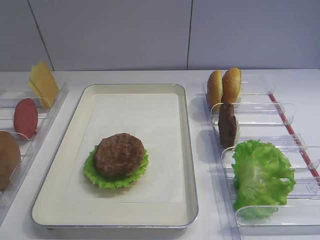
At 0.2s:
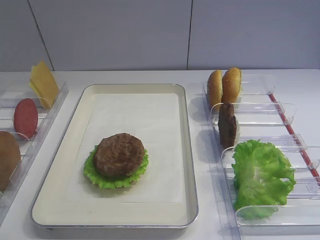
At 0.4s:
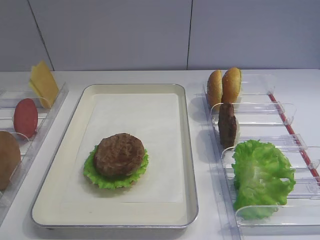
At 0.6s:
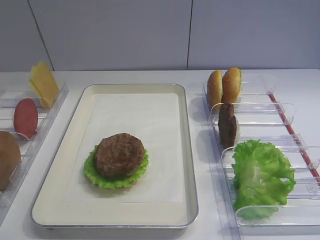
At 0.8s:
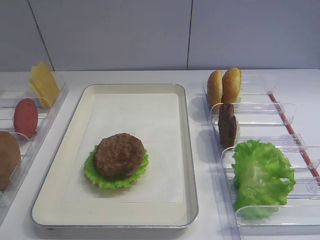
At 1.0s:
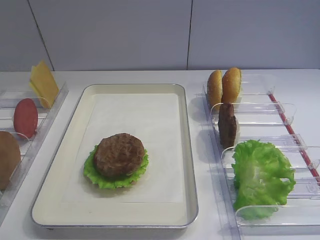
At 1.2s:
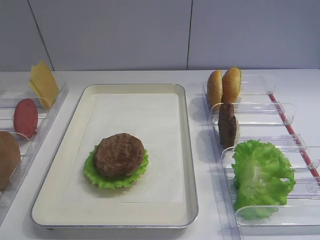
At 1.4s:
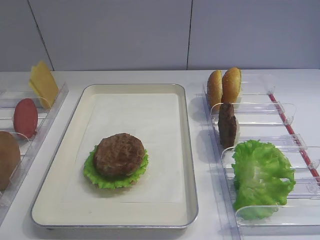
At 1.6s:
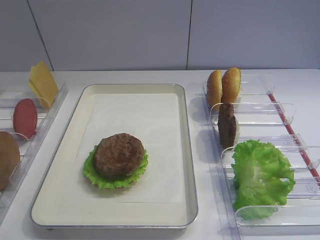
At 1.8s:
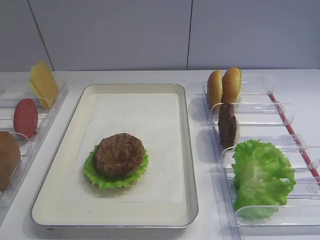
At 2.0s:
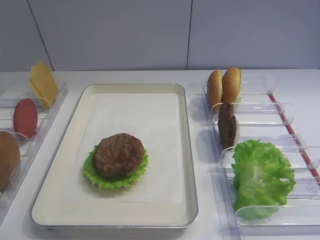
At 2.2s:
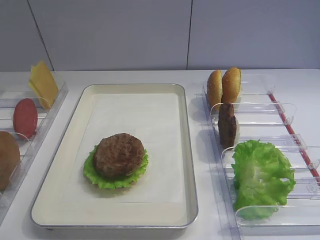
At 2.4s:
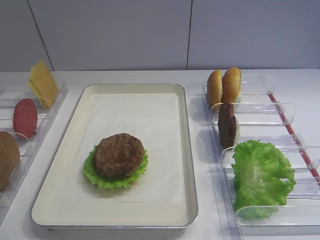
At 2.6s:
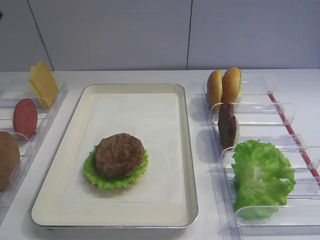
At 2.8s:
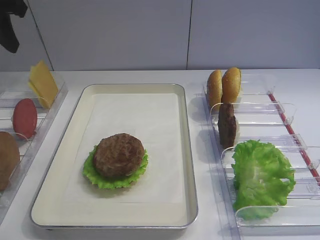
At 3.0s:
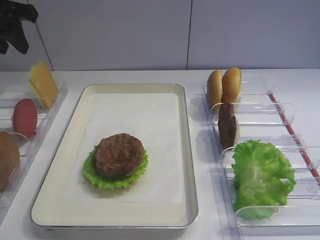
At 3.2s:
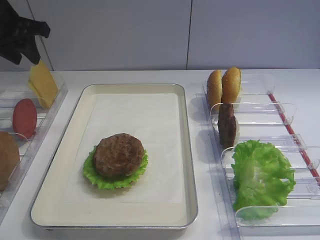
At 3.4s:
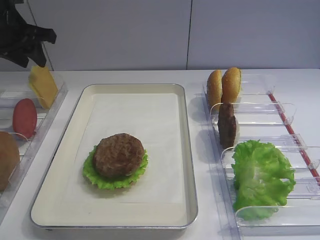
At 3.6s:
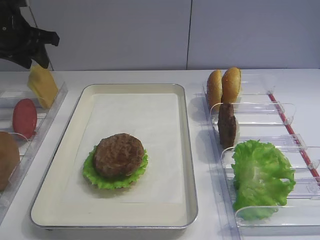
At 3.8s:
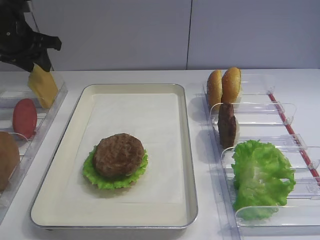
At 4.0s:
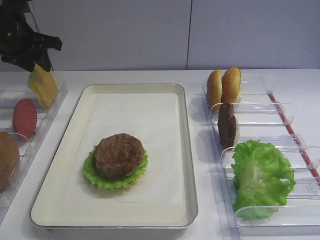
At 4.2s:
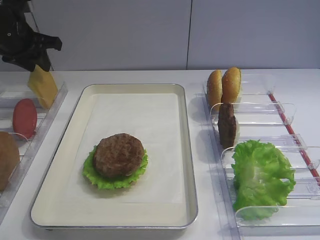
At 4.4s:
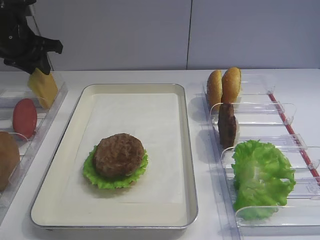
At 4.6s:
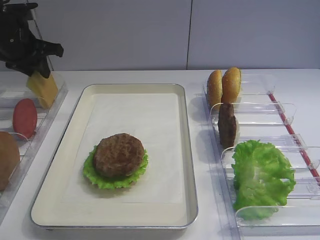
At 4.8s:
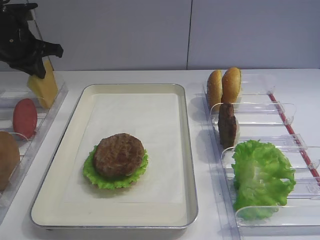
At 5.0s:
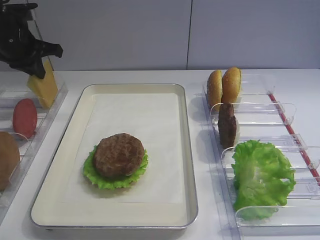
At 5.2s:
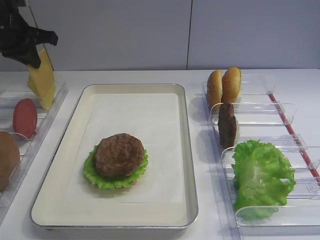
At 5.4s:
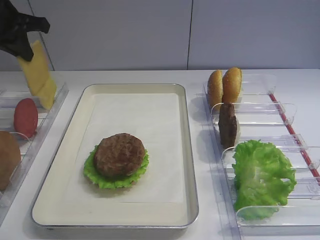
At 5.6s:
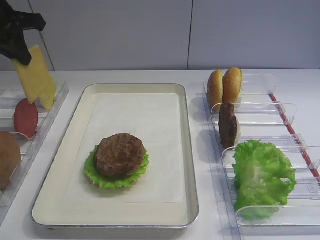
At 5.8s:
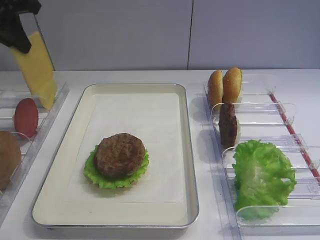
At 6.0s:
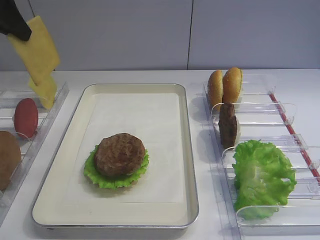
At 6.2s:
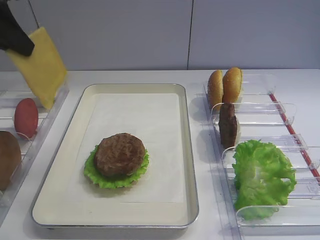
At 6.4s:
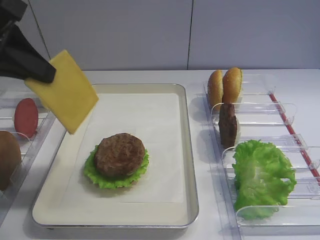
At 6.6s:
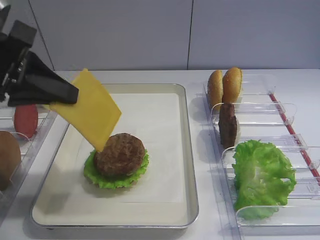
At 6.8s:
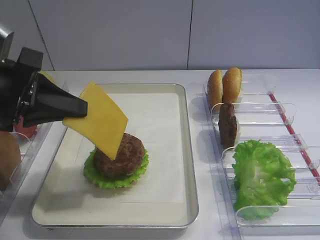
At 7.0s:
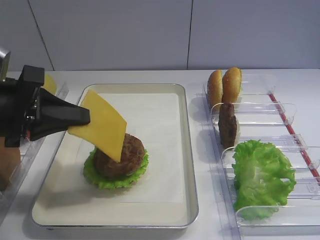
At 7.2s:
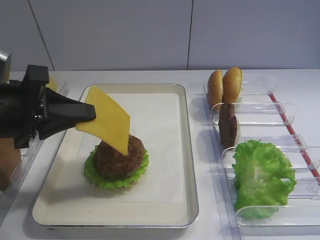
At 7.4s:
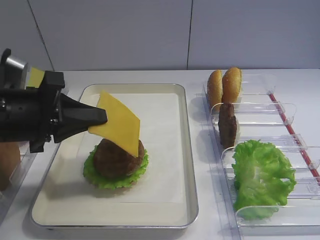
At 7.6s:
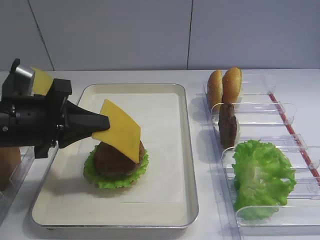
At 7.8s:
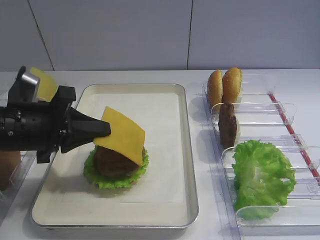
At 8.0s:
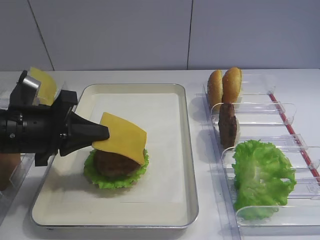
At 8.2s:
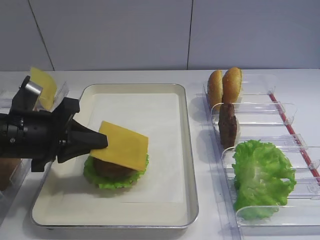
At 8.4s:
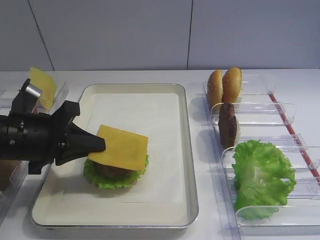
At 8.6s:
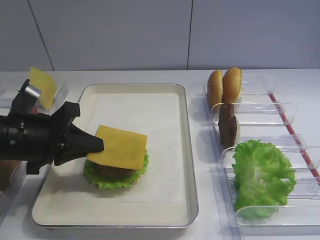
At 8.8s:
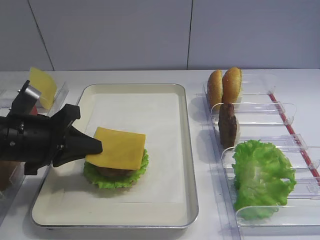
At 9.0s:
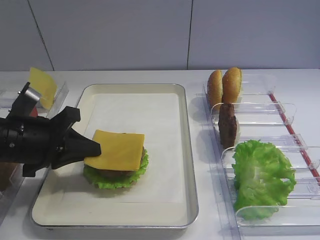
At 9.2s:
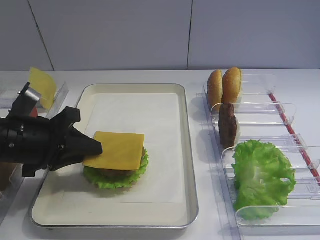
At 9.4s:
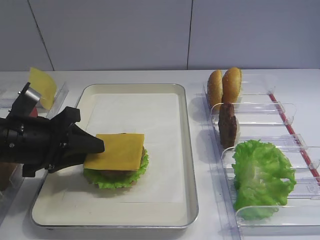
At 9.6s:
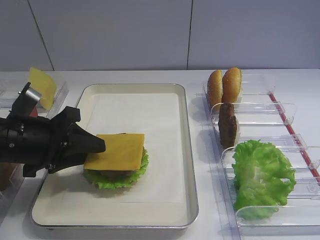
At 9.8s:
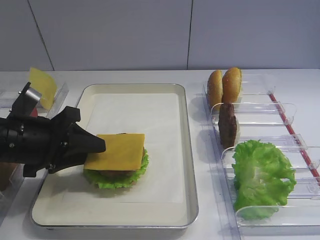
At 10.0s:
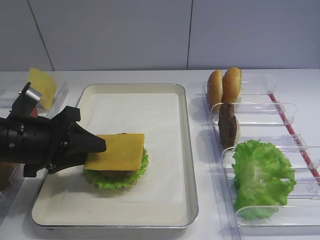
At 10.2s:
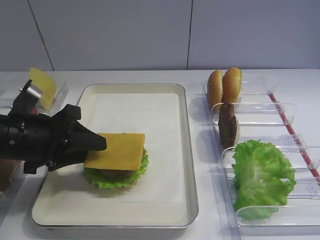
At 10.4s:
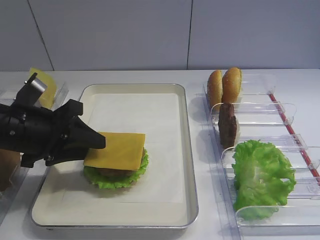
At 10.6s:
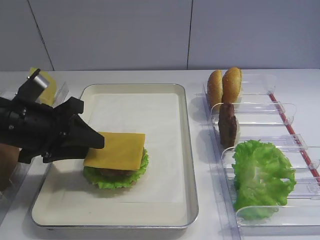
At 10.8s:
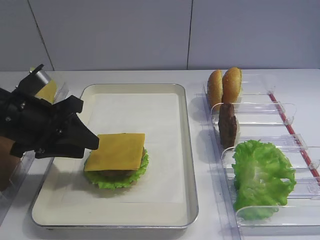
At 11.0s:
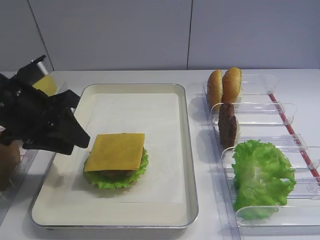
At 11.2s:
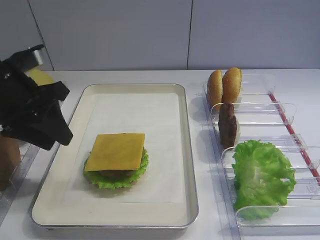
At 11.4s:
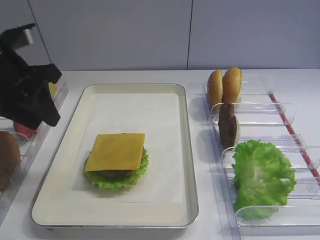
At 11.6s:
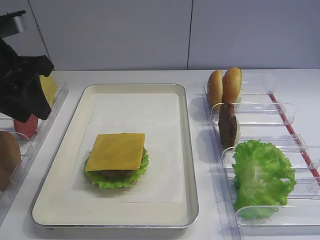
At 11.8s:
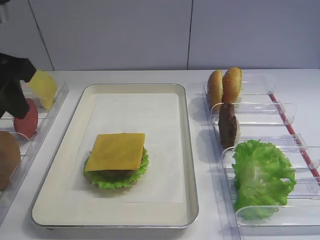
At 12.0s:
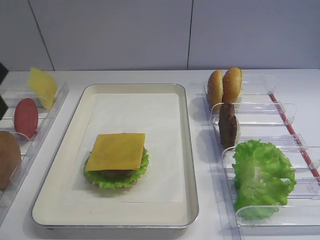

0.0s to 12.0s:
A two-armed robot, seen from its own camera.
Step, 0.0s to 5.4s: Pick up the cheese slice with the left gripper.
Step, 5.6s to 11.0s: Place the cheese slice on the cutlet with the left gripper.
1.6s to 3.0s: The left gripper shifts some 40 cm forward.
3.0s to 4.4s: The left gripper is displaced downward and forward by approximately 10 cm.
4.4s to 6.0s: The left gripper moves upward and backward, about 15 cm, and closes its fingers.
6.0s to 7.6s: The left gripper heads downward and backward, covering approximately 20 cm.
7.6s to 9.0s: The grippers stay close to where they were, moving slightly.
9.0s to 10.4s: The left gripper opens its fingers.
10.4s to 12.0s: The left gripper is displaced upward by roughly 15 cm.

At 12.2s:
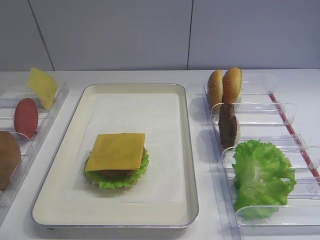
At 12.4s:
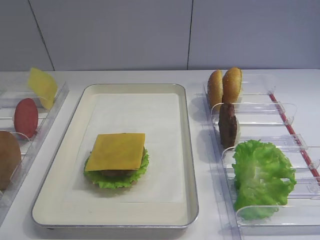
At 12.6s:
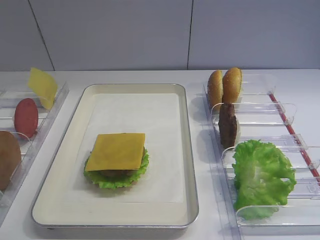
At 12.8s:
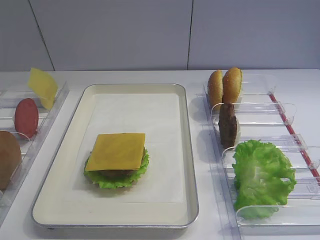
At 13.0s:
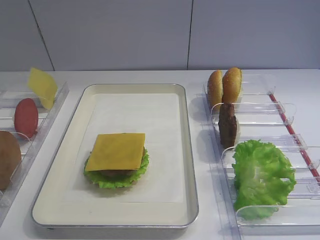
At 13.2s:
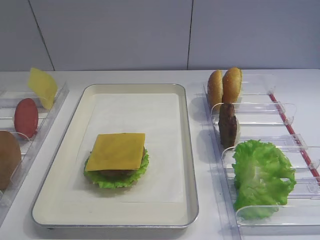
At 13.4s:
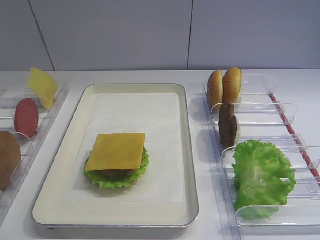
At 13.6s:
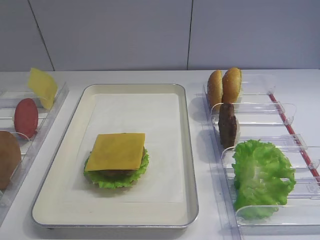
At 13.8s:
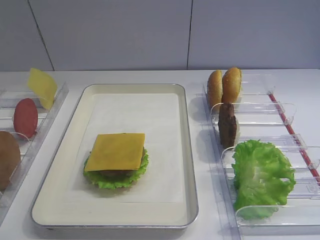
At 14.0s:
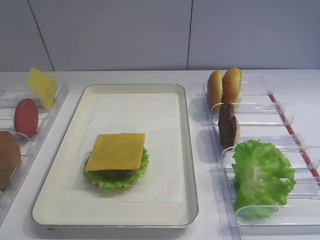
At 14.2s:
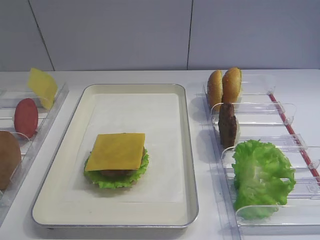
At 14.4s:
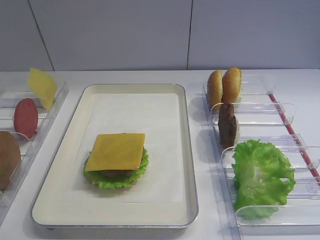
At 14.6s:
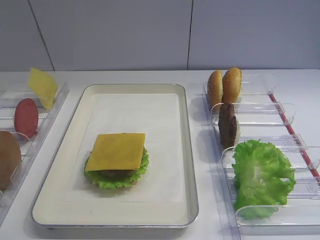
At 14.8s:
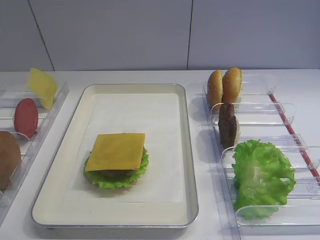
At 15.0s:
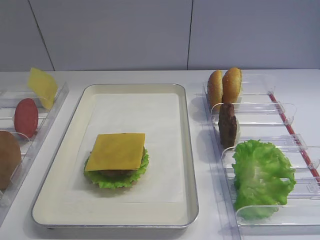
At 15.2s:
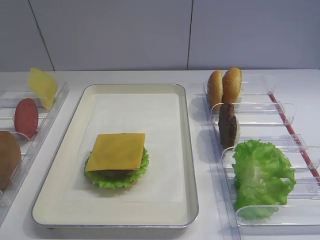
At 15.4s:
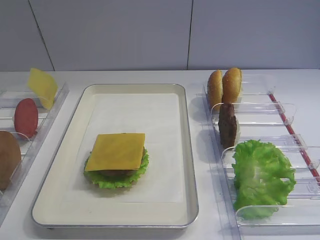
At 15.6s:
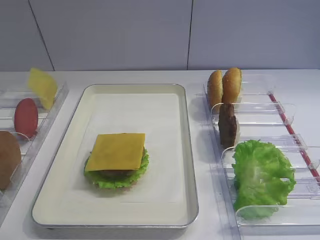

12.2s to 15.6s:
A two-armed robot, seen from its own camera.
13.8s to 15.6s: Both grippers stay put.

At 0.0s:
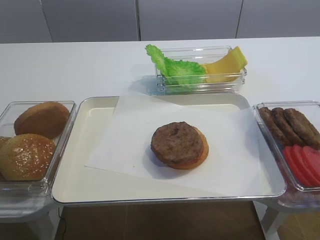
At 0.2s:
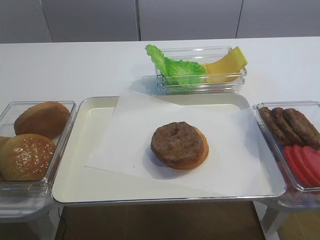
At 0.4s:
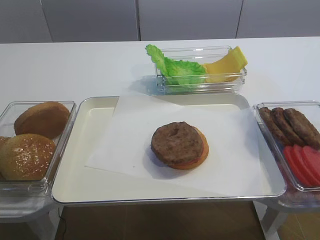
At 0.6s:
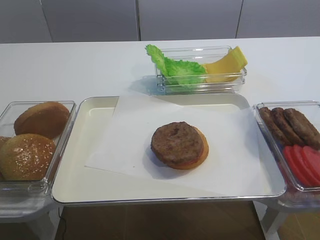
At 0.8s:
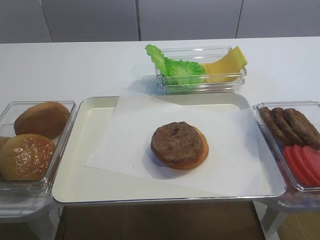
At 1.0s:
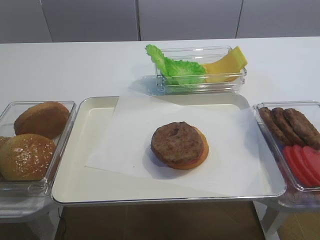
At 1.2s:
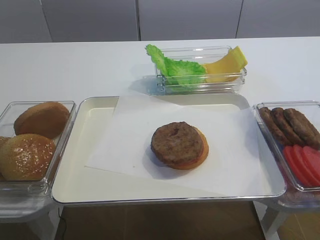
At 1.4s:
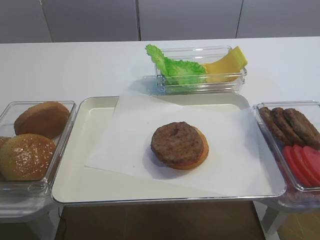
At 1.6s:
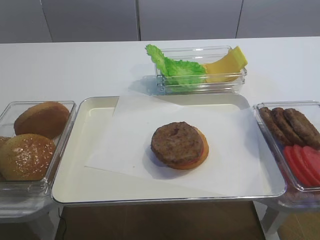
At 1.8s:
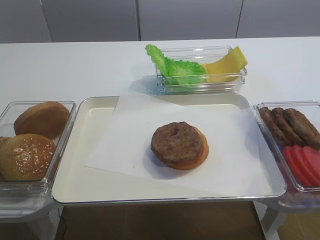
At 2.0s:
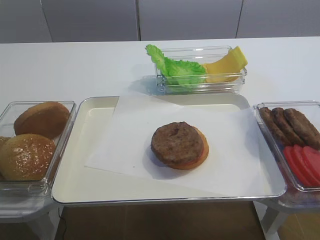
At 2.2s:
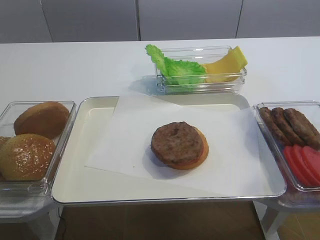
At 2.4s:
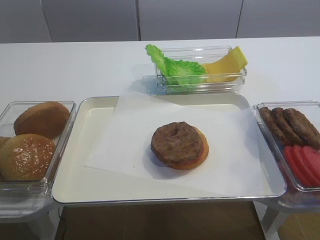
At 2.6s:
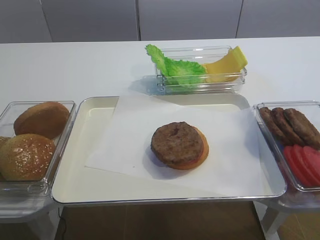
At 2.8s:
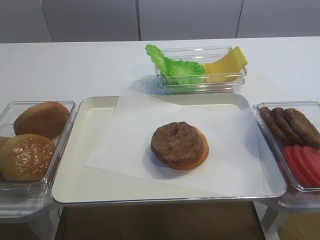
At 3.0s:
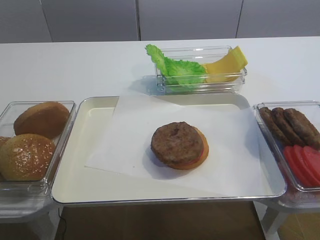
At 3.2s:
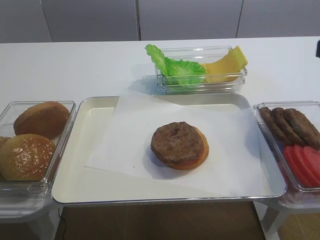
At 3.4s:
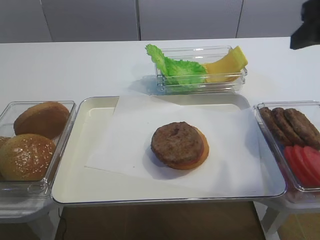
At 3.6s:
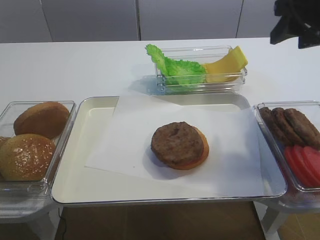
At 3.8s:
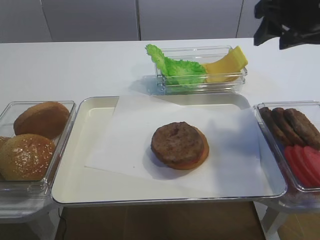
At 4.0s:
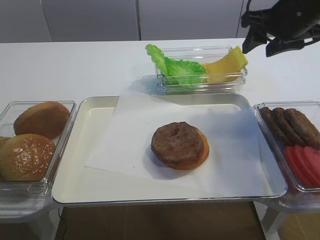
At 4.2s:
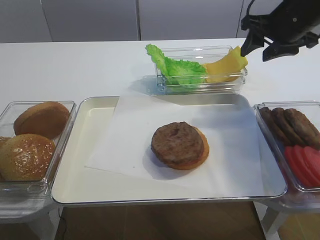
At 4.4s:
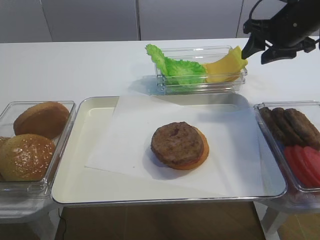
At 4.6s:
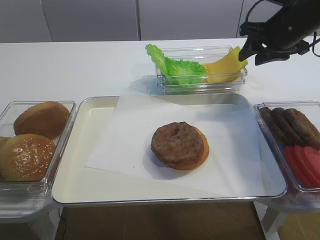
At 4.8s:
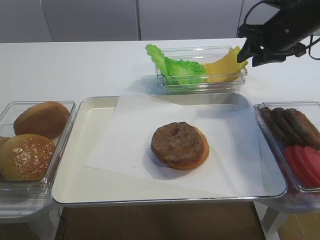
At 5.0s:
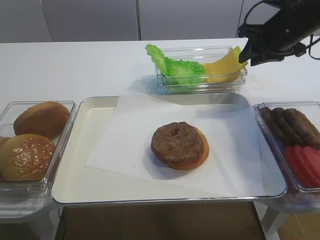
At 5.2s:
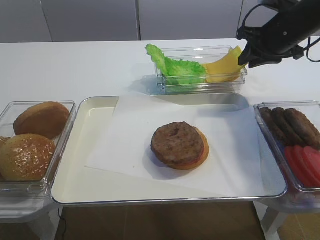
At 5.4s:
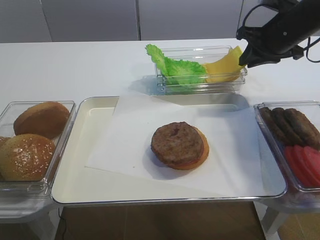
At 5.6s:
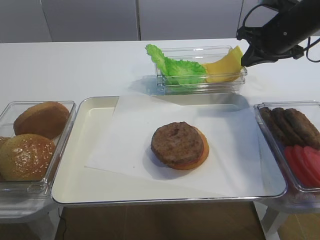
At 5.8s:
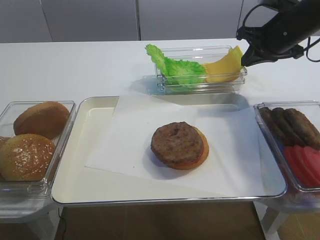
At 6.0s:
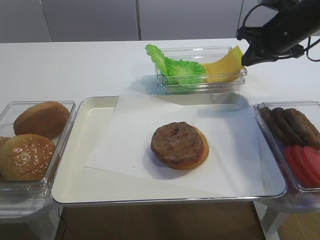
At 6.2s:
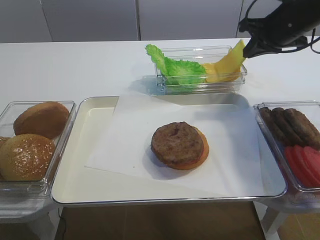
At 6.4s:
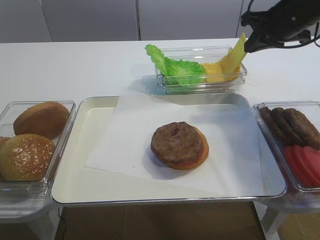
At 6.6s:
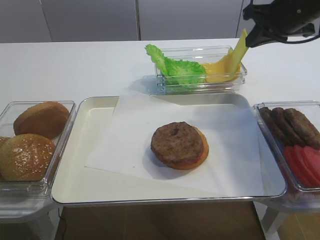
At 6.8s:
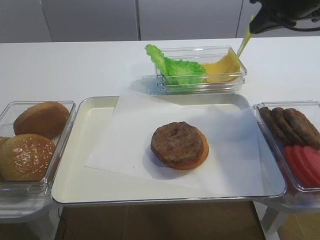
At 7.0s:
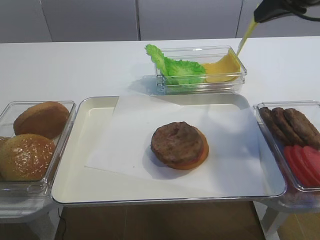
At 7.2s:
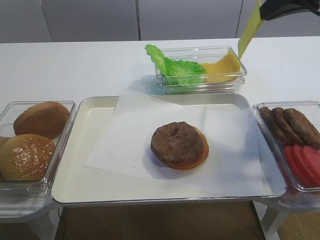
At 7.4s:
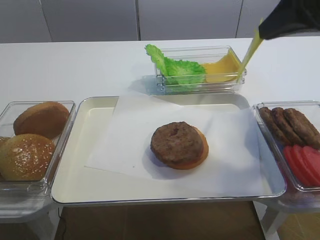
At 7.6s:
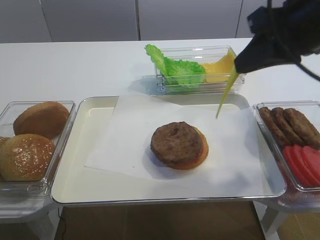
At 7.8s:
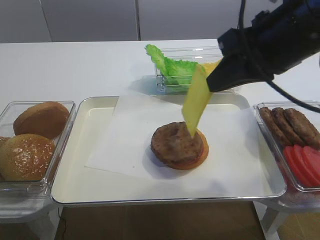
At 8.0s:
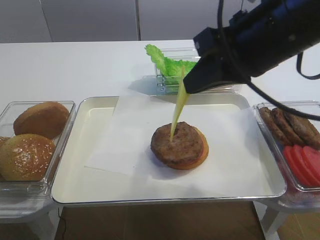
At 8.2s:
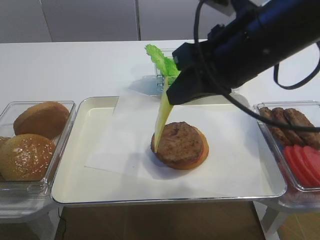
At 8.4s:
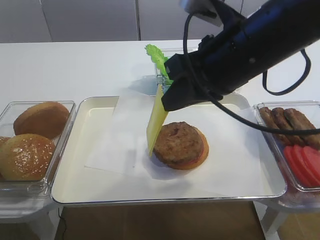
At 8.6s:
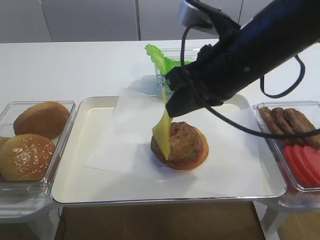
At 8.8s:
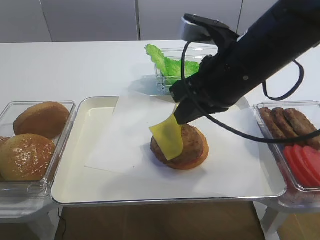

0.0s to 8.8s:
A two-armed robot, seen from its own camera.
Step, 0.0s to 6.2s: Pick up the cheese slice with the right gripper.
3.0s to 4.4s: The right gripper travels forward by about 30 cm.
4.4s to 5.8s: The right gripper closes.
5.8s to 7.4s: The right gripper goes some 20 cm backward and upward.
7.4s to 8.8s: The right gripper moves to the left and downward, roughly 15 cm.
